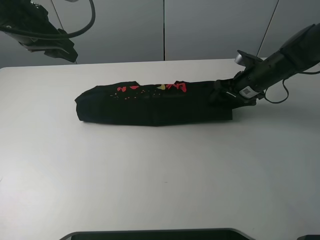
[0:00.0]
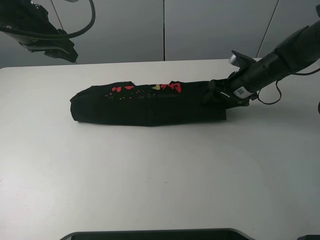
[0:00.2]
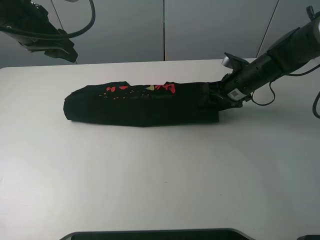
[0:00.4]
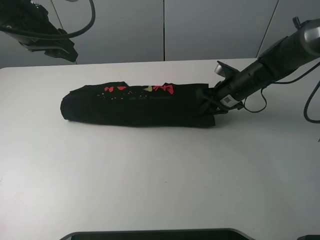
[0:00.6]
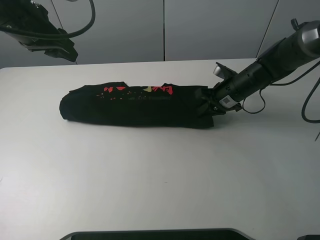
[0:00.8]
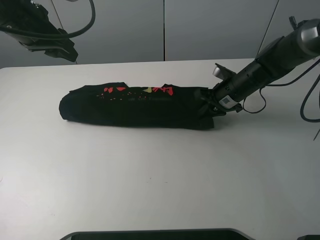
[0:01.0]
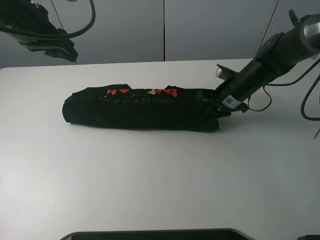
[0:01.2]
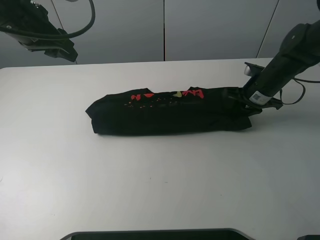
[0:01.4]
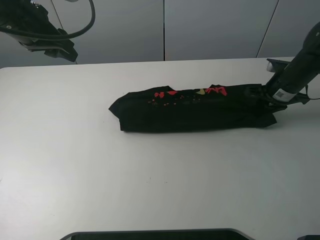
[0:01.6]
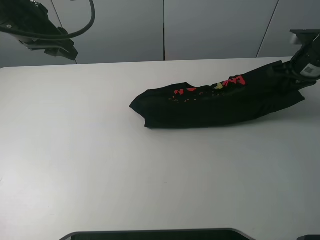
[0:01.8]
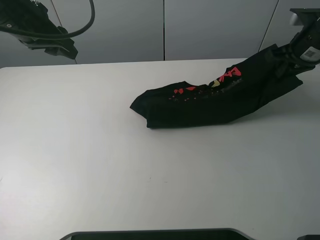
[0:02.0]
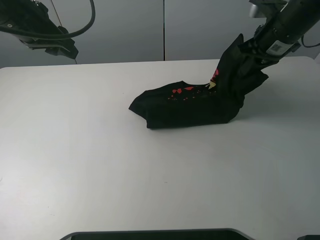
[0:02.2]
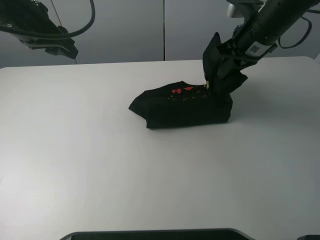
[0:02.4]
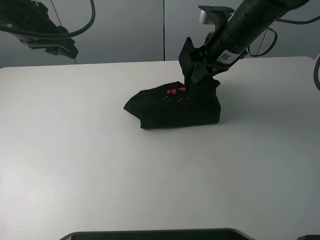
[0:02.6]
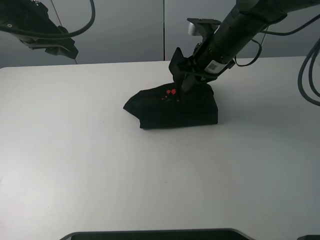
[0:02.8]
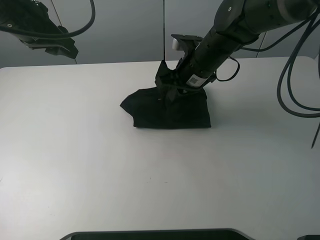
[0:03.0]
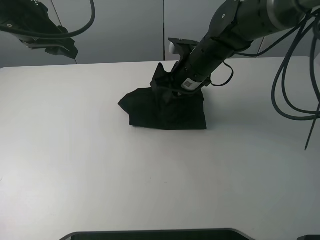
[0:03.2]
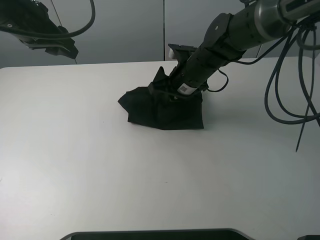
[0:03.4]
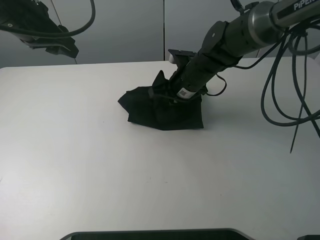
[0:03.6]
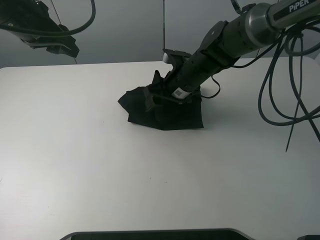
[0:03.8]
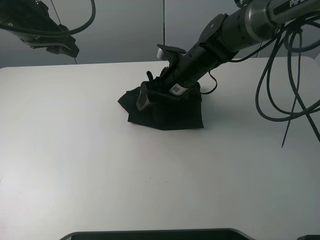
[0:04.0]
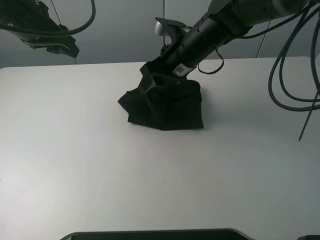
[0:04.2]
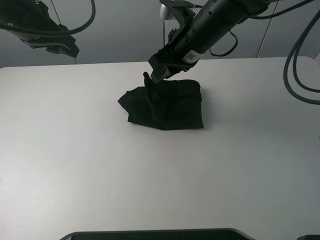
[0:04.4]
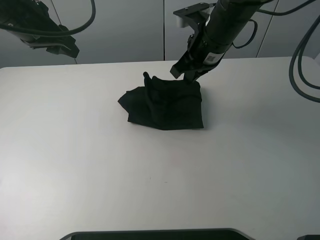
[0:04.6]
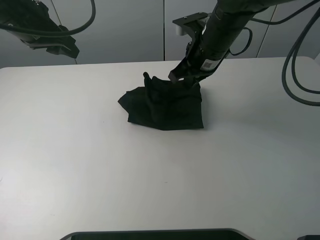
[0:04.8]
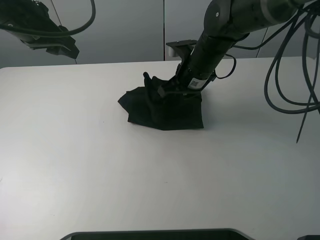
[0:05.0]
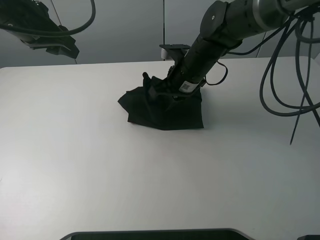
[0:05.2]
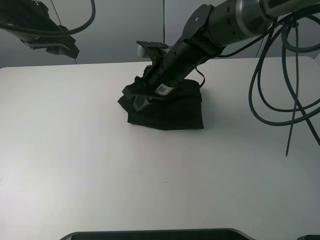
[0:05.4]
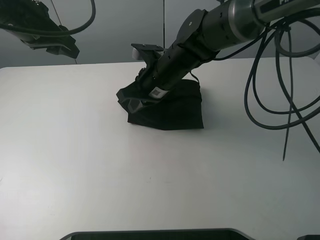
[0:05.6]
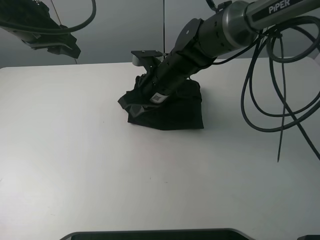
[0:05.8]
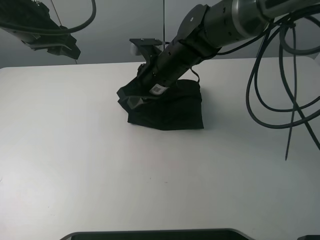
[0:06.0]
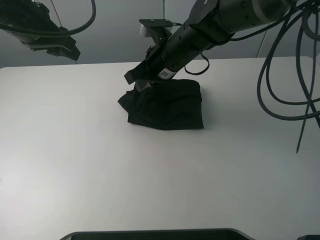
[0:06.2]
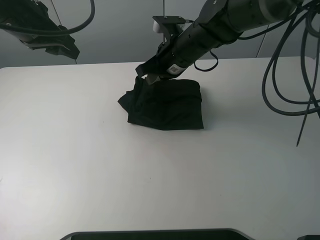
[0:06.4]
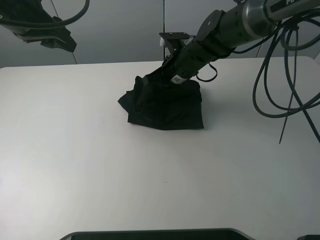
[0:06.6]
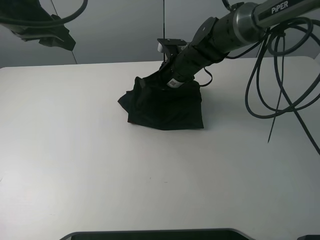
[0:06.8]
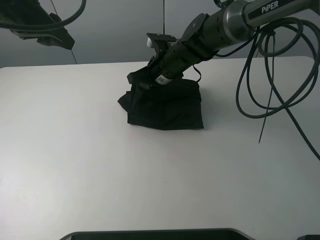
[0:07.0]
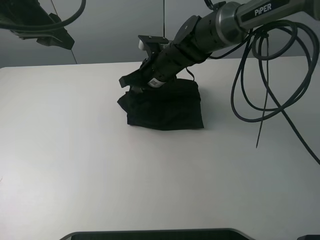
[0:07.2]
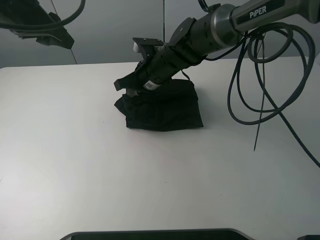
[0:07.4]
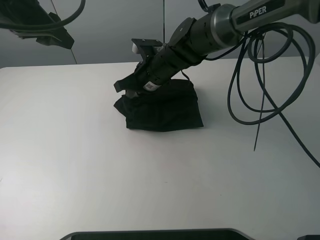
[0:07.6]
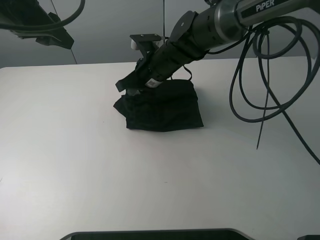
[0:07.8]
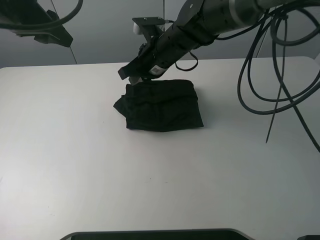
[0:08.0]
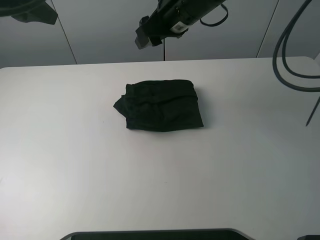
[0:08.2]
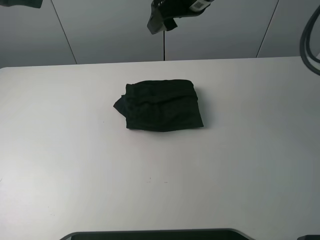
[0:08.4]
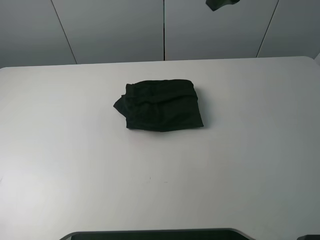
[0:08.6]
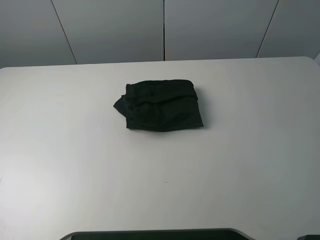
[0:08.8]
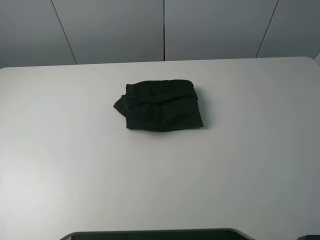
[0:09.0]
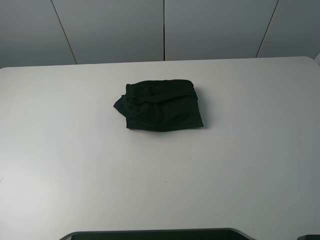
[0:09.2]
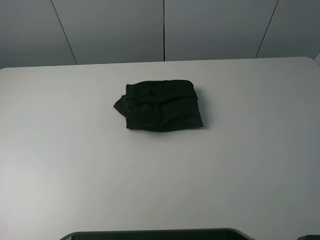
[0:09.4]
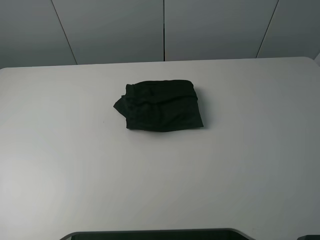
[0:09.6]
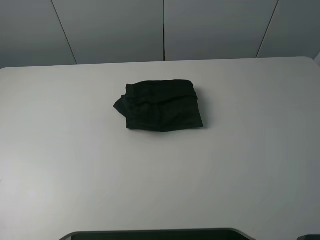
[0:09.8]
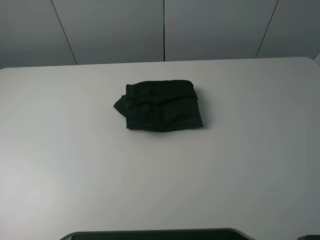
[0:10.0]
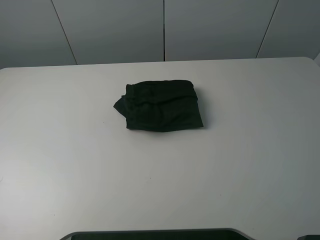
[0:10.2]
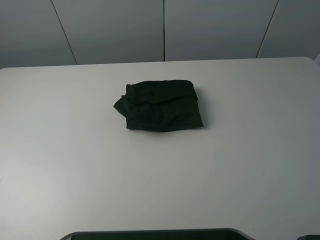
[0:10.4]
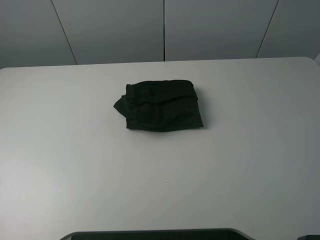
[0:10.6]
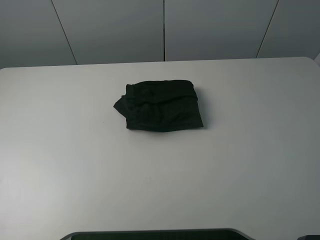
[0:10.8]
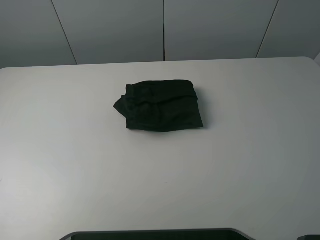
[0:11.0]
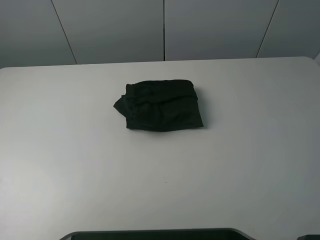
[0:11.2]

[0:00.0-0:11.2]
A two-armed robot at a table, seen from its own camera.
Task of the whole recording: fold the clothes on the table.
Step, 0:01.0 to 0:07.4: Fold the black T-shirt from right to left with right gripper.
0:00.0 to 0:01.6: The right gripper shifts approximately 10 cm to the right, and closes up.
0:01.6 to 0:03.2: The right gripper shifts about 25 cm to the left.
0:03.2 to 0:04.8: The right gripper opens, then closes once more.
0:08.0 to 0:09.6: The right gripper moves backward, to the right and upward, about 60 cm, and opens up; the left gripper shifts approximately 30 cm backward, upward and to the left.
